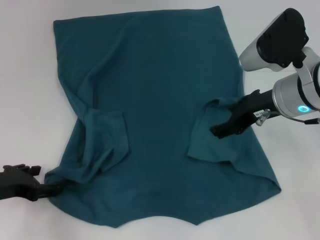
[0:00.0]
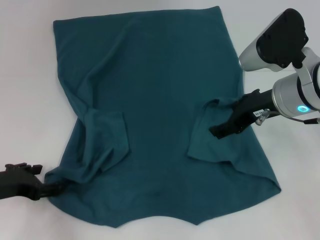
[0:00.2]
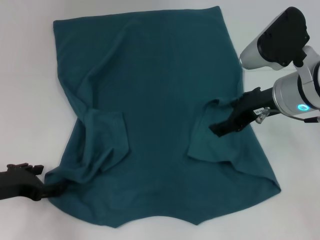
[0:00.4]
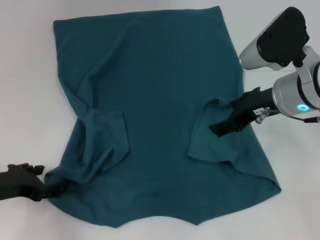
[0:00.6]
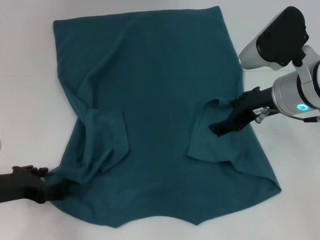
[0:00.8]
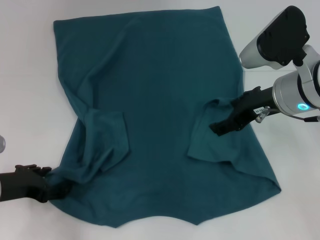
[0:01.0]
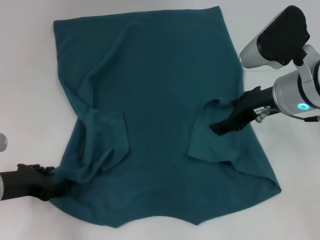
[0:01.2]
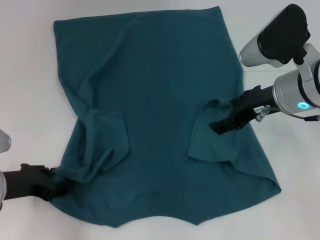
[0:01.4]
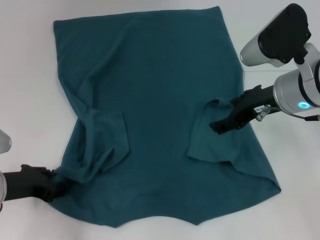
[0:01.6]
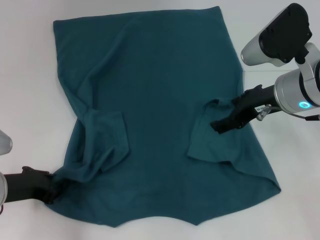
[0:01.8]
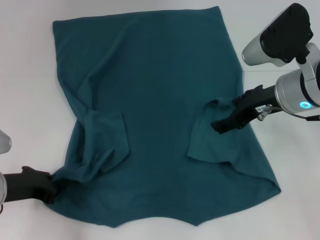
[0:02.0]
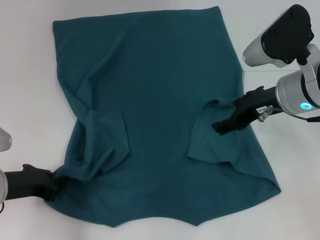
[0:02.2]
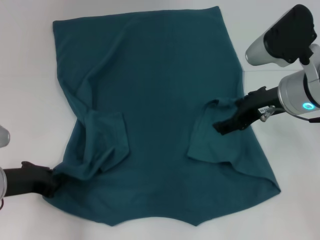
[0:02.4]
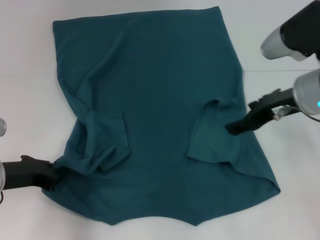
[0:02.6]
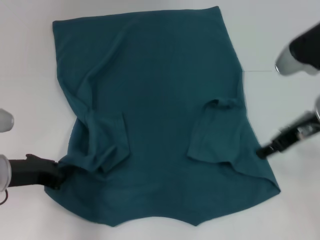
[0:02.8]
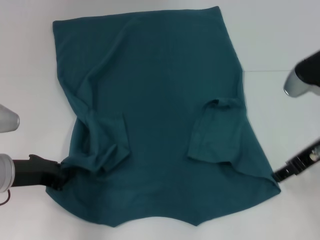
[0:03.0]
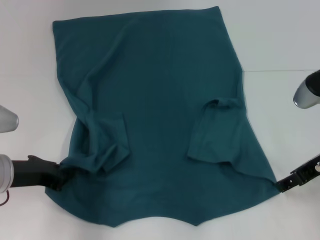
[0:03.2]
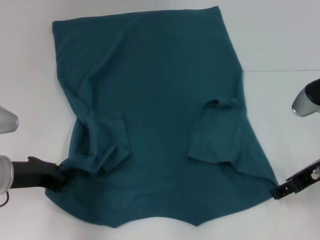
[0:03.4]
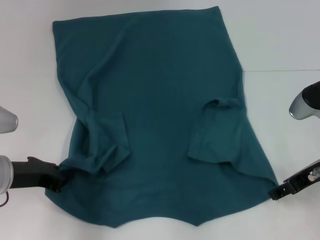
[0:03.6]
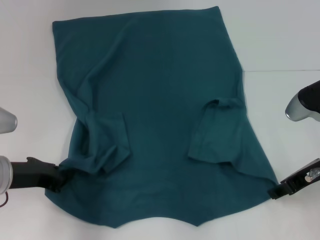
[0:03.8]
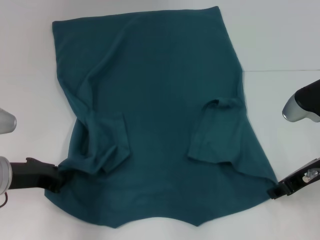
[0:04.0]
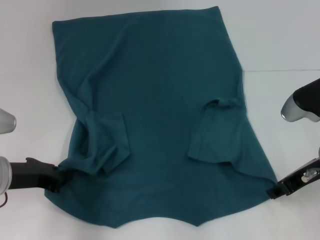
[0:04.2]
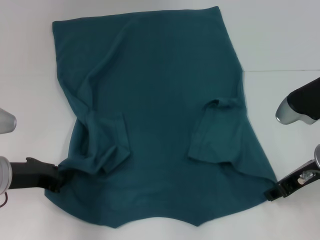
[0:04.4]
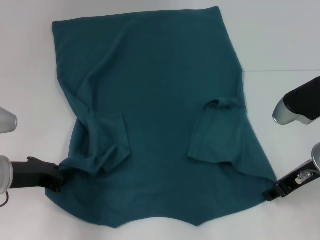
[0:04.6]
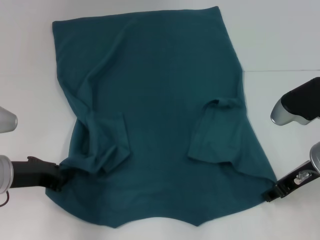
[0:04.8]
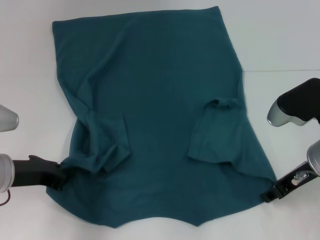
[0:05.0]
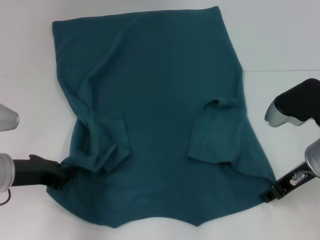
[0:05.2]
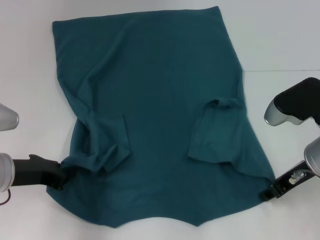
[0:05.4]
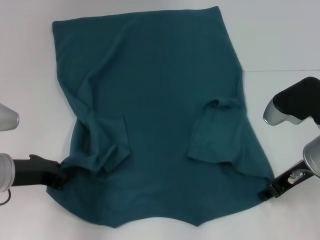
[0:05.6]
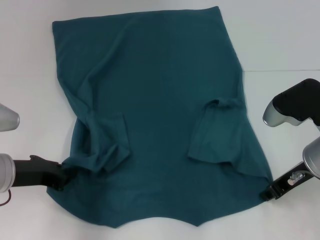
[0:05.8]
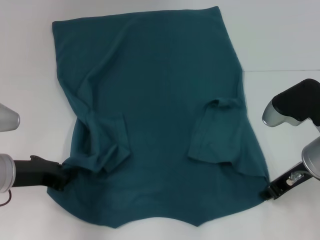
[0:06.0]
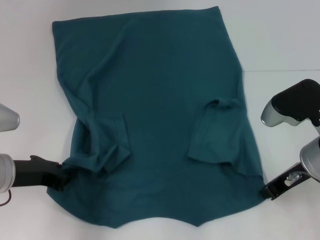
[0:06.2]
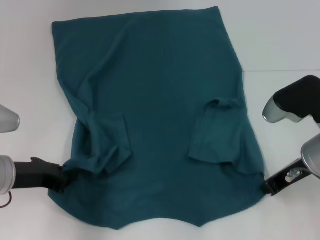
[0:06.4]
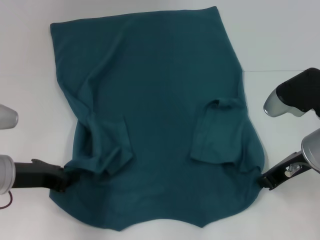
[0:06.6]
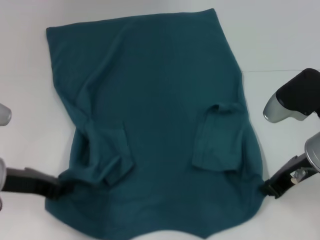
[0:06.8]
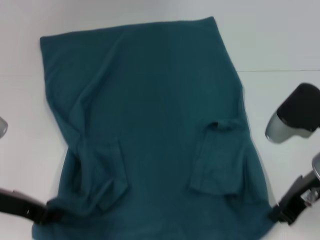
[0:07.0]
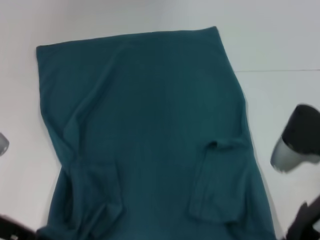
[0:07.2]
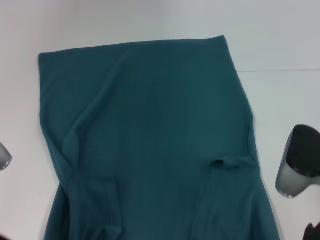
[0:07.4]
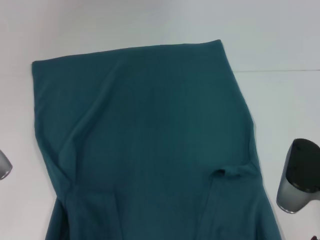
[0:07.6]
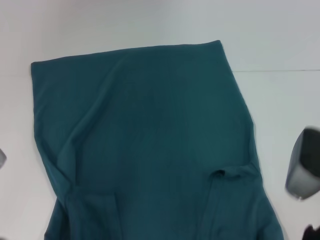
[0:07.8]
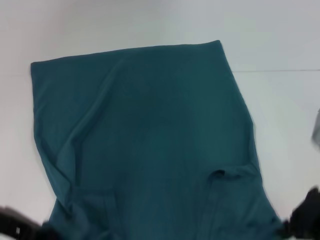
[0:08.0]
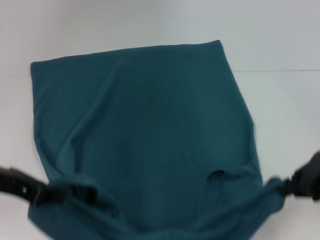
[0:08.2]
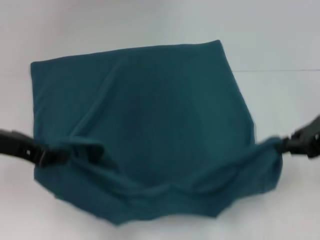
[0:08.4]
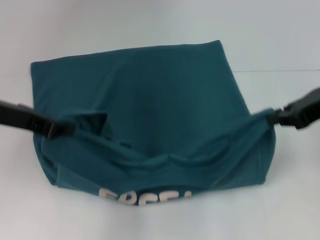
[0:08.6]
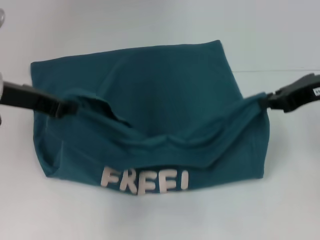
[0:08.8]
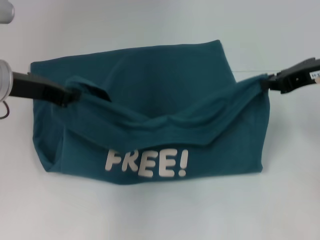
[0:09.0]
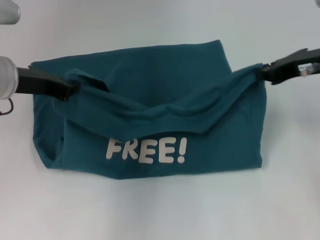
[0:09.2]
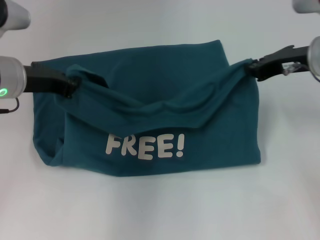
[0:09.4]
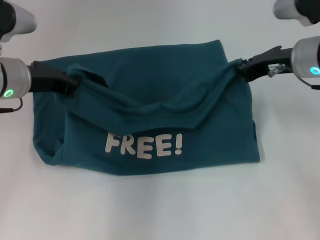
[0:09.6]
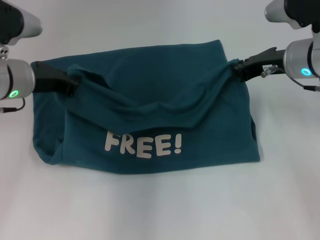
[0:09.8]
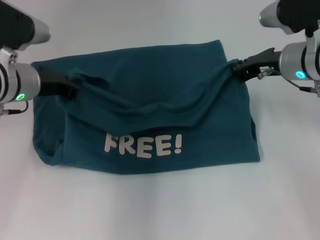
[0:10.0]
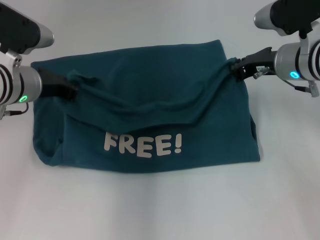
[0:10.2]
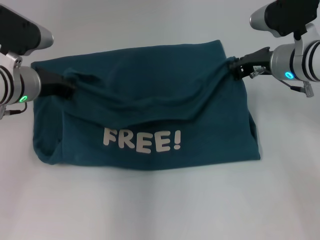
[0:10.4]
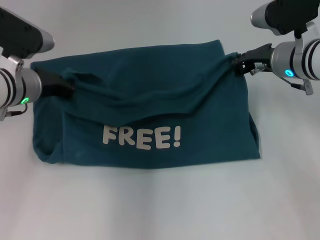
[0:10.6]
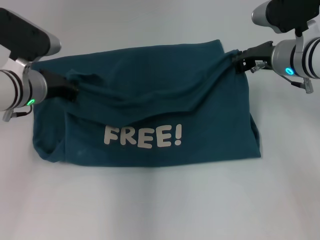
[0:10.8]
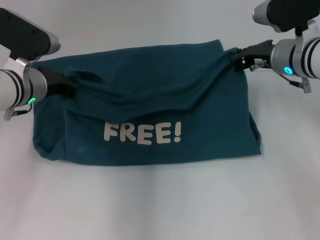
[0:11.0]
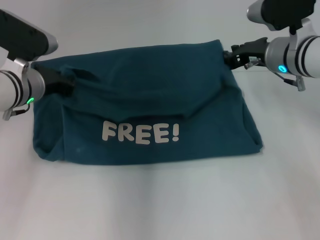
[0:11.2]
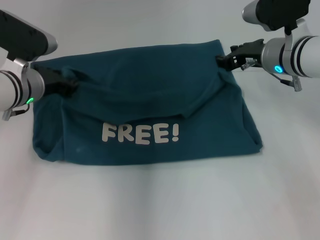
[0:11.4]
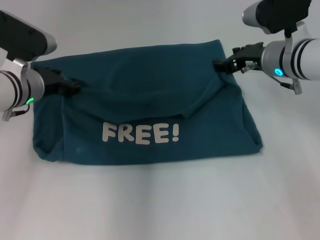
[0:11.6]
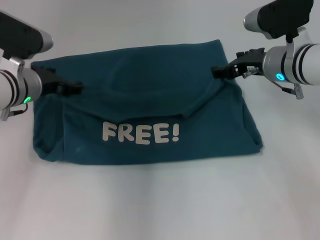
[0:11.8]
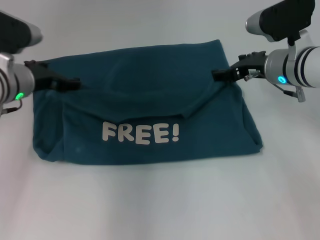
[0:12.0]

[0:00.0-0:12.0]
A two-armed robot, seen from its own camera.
Step, 0.0 to 2.0 s: Grab the bottom left corner with your left hand.
Step, 2.2 to 6.4 s: Grab the bottom right corner with your right hand.
Step, 6.6 to 11.8 s: Fold the clothes to the left.
Step, 6.6 to 11.8 s: Fold the clothes to the right.
0.0 to 1.6 s: The left gripper closes.
1.6 to 3.0 s: The right gripper heads to the right, covering approximately 5 cm. Meanwhile the left gripper closes its fingers.
3.0 to 6.0 s: The grippers stay close to where they were, moving slightly.
6.0 to 7.6 s: Both grippers move backward, roughly 5 cm.
7.6 to 9.0 s: The two grippers go approximately 15 cm forward and upward.
9.0 to 10.4 s: The right gripper is displaced downward, forward and to the left by approximately 10 cm. Meanwhile the left gripper travels downward and forward by some 10 cm.
10.4 to 12.0 s: The left gripper opens, while the right gripper opens its fingers.

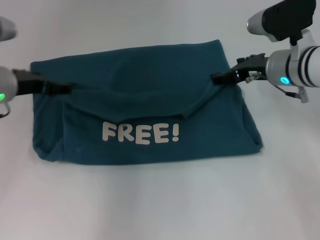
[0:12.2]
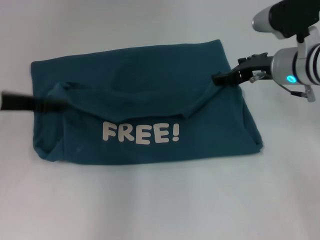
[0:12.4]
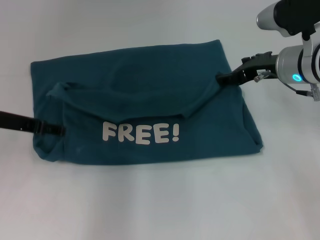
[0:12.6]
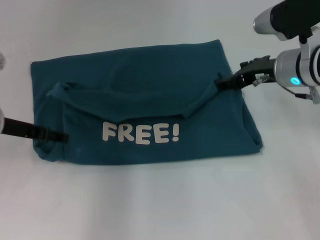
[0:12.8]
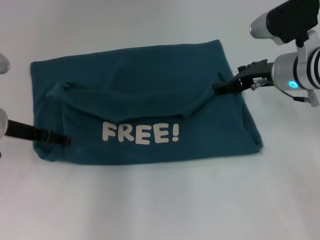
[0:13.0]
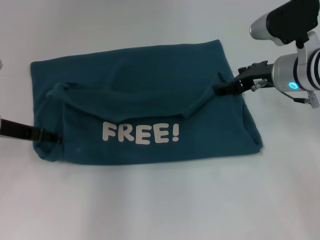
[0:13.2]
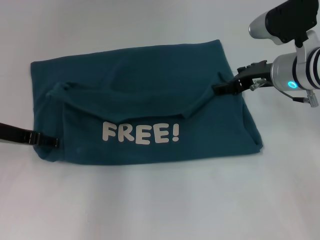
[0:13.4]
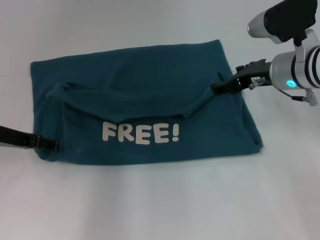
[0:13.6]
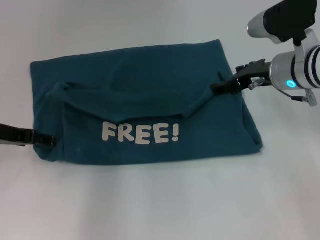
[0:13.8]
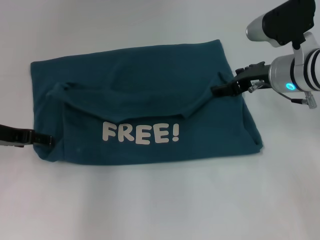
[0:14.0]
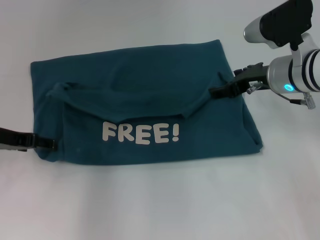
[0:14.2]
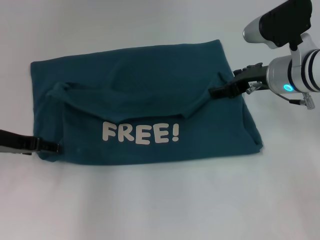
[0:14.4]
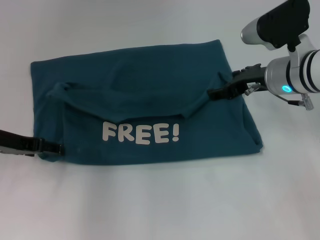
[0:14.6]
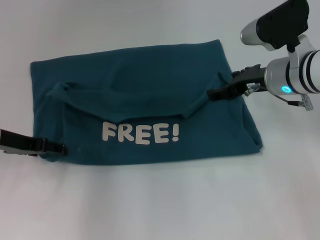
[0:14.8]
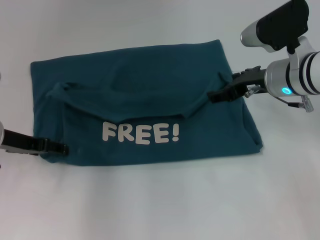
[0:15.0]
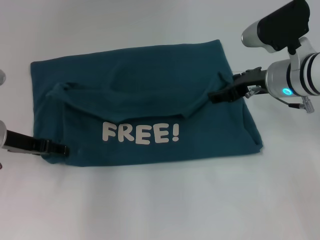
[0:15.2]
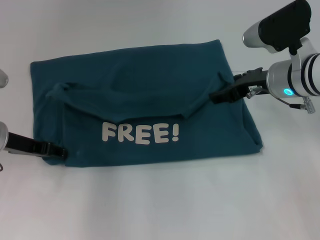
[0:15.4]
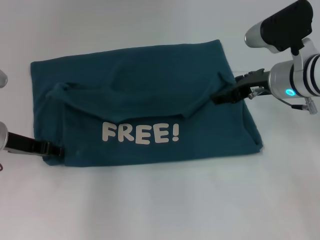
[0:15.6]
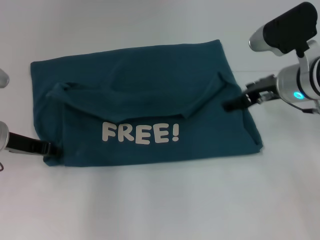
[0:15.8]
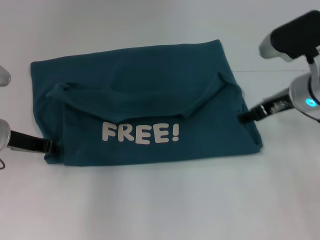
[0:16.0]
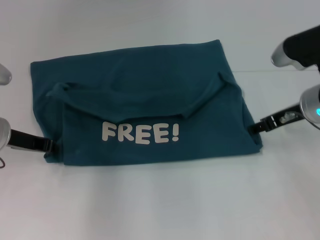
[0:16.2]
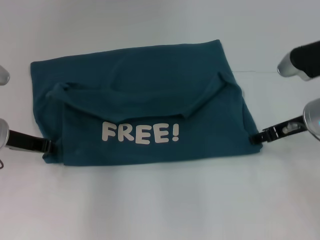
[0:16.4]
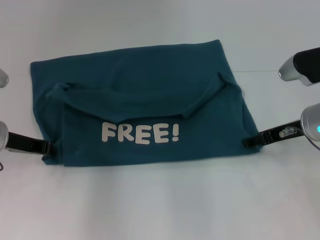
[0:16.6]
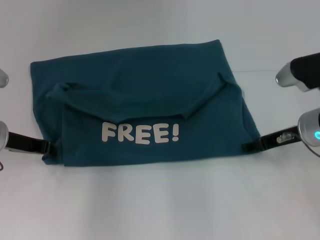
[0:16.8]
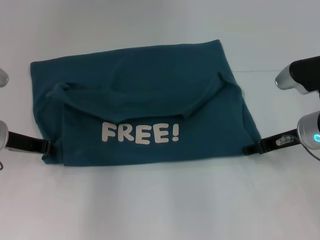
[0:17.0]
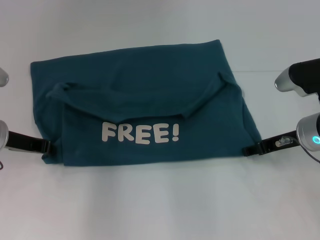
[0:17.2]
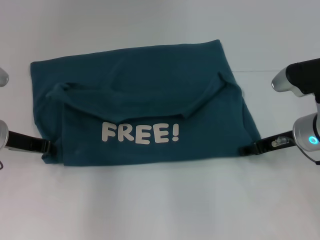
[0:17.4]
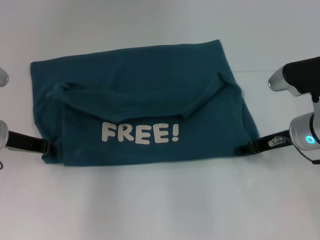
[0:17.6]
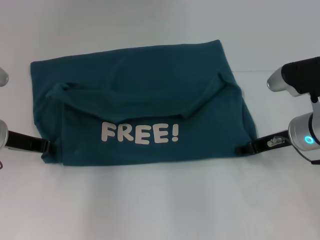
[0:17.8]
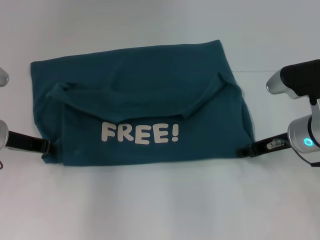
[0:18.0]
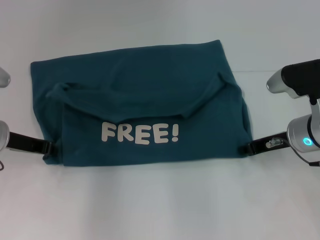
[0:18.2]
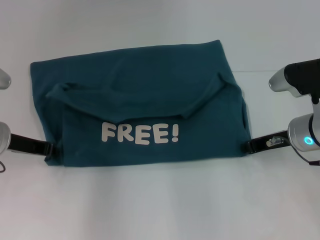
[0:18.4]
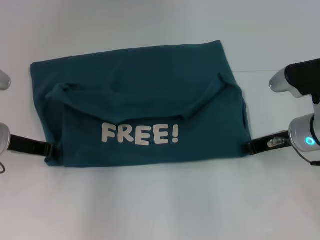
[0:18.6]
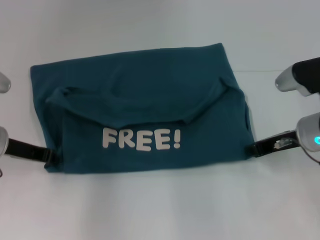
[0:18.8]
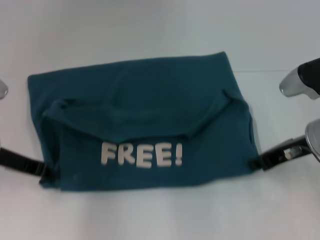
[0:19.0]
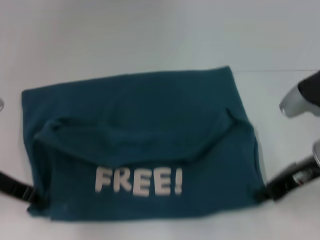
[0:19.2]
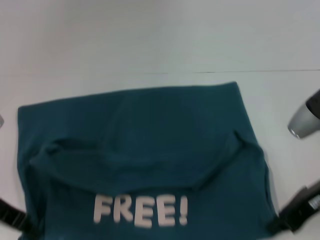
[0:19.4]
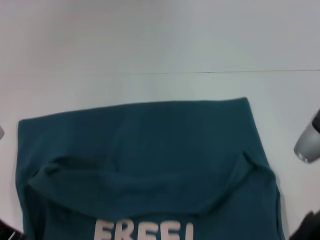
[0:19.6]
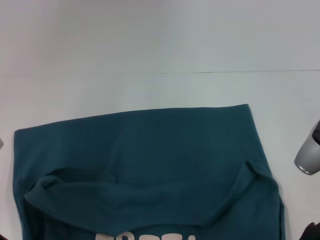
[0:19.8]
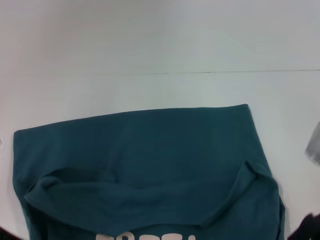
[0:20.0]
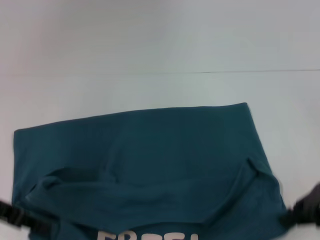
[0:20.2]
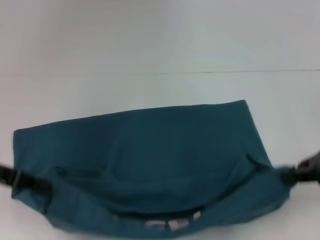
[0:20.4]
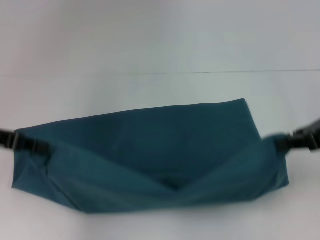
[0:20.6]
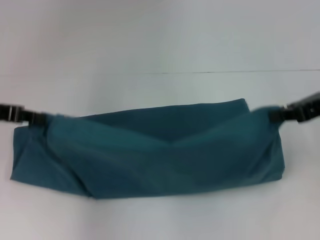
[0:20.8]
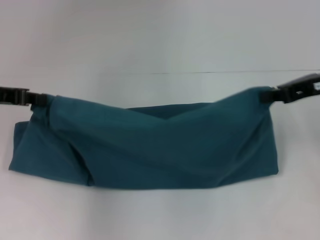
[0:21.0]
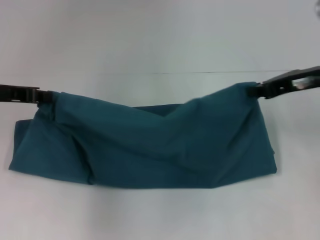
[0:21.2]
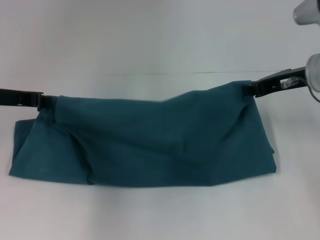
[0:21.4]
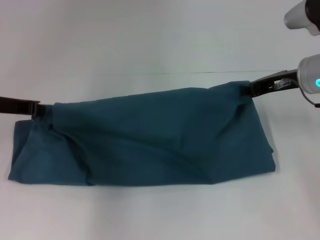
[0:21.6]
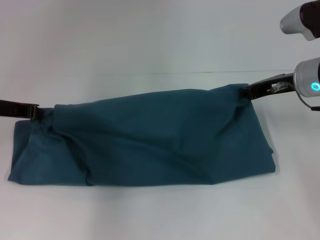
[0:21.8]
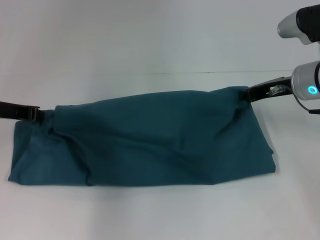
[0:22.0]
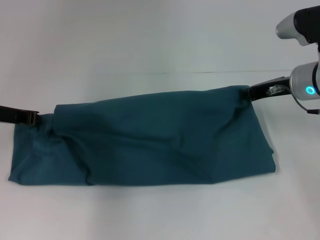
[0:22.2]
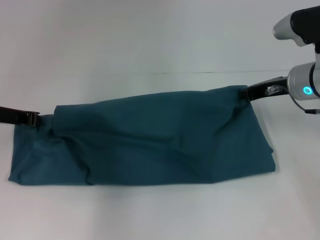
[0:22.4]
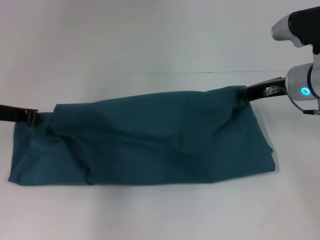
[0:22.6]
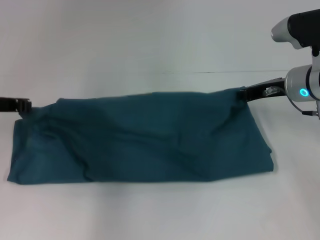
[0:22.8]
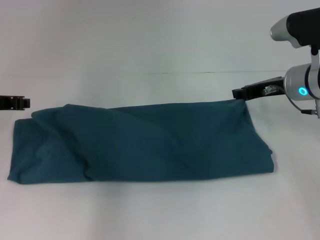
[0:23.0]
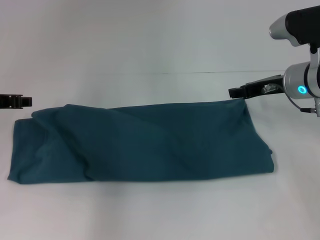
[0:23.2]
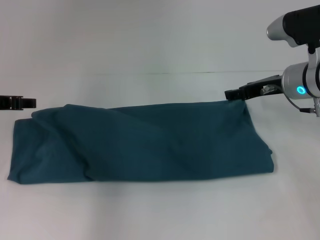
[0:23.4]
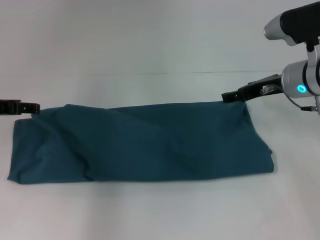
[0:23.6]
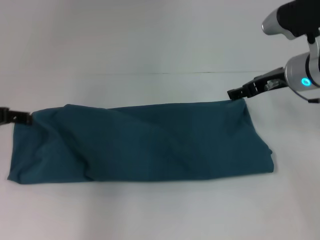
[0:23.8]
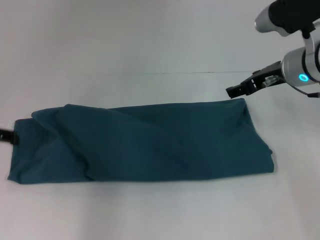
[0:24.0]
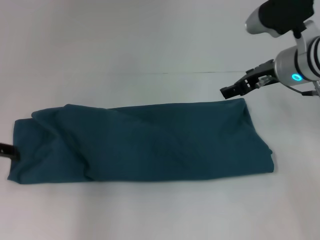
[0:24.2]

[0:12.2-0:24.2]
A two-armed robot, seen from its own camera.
Step, 12.2 to 19.4 s: Pull the clothes with your left hand.
Step, 12.2 to 19.4 s: Pull the clothes with your right hand.
Step, 19.6 to 23.2 s: Fold the clothes to the left.
Step, 19.6 to 23.2 s: Fold the clothes to the right.
12.2 to 13.8 s: The left gripper ends up about 5 cm from where it was.
13.8 to 15.2 s: The grippers move only a little.
15.2 to 16.6 s: The left gripper closes, while the right gripper moves to the right, some 5 cm.
16.6 to 18.2 s: The right gripper closes.
18.2 to 19.8 s: Both grippers move backward, some 10 cm. The right gripper closes up.
19.8 to 21.2 s: Both grippers travel together forward and upward, roughly 10 cm.
21.2 to 22.6 s: The right gripper goes about 5 cm downward.
22.6 to 24.2 s: The left gripper shifts by some 5 cm, and opens. The right gripper opens.
